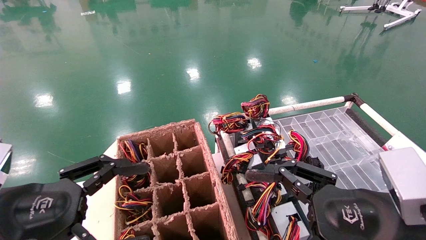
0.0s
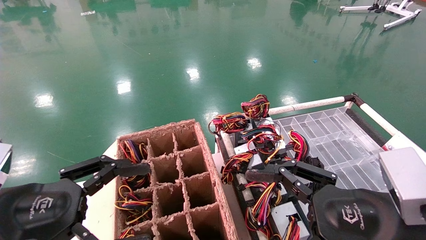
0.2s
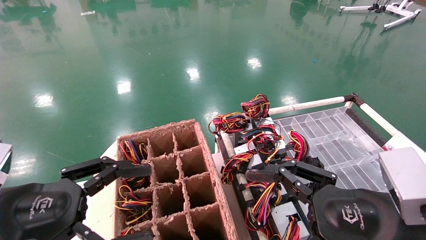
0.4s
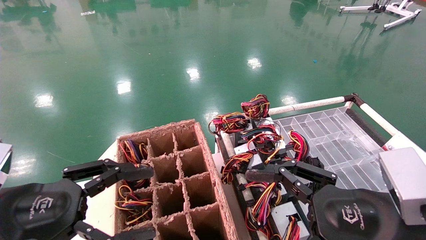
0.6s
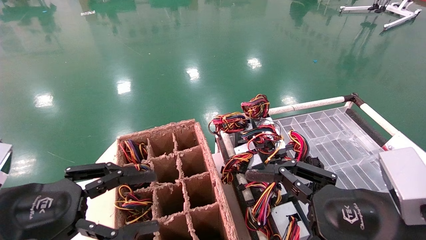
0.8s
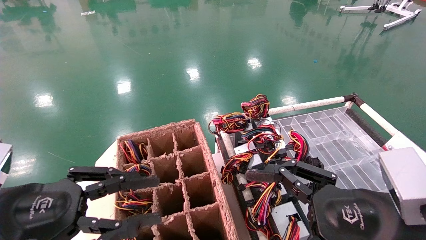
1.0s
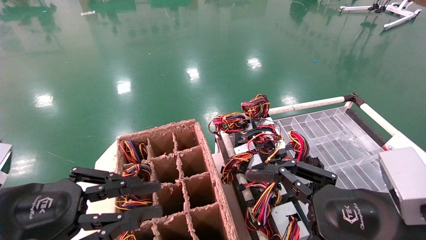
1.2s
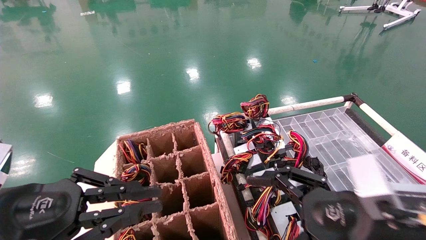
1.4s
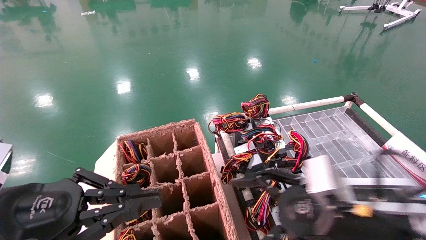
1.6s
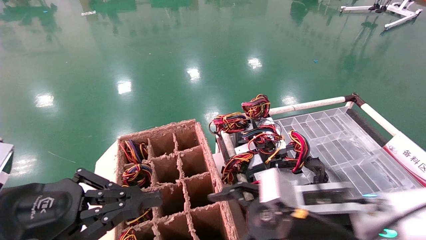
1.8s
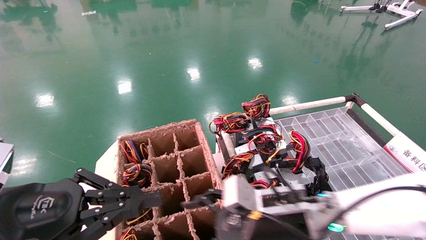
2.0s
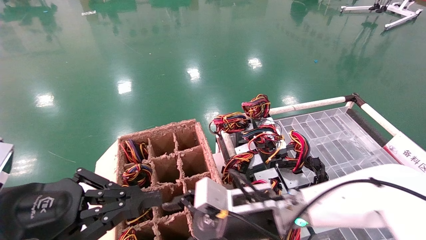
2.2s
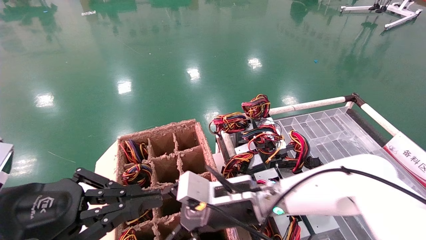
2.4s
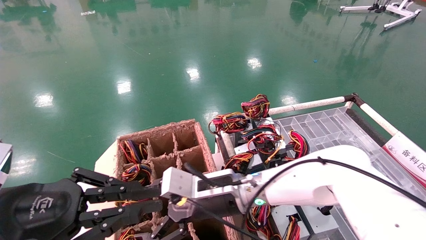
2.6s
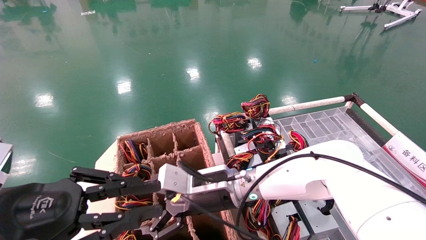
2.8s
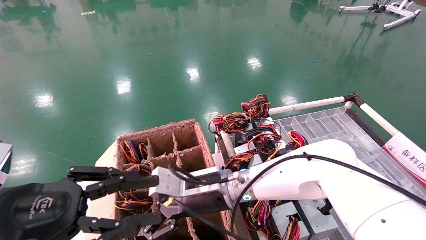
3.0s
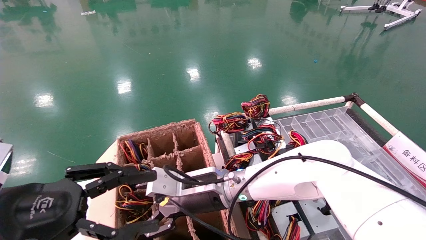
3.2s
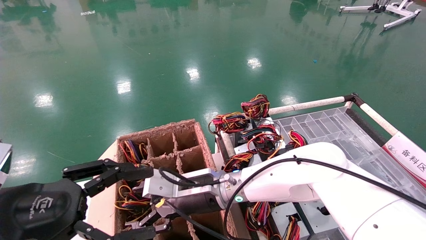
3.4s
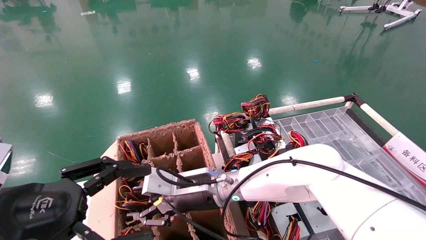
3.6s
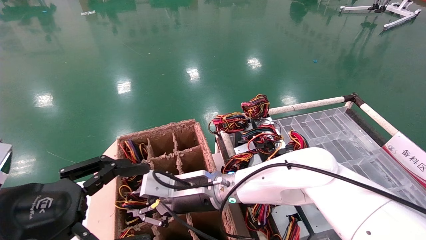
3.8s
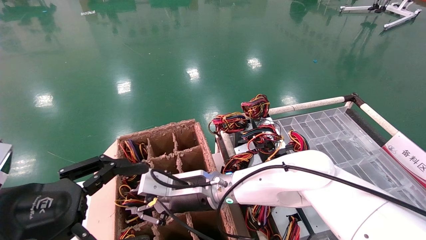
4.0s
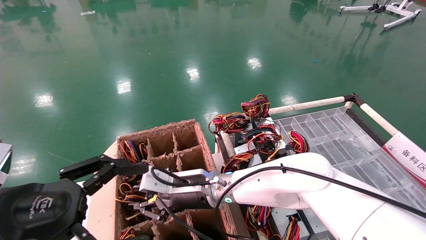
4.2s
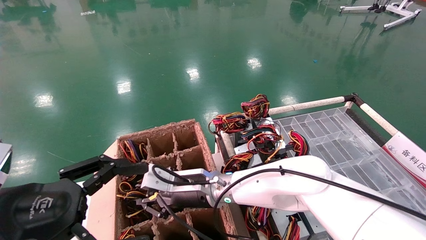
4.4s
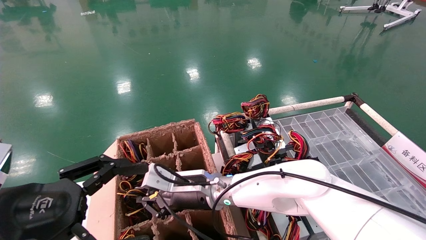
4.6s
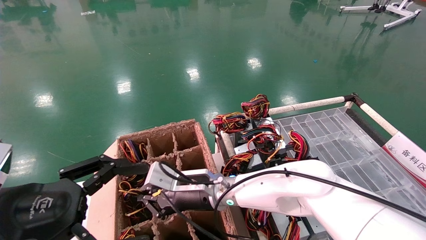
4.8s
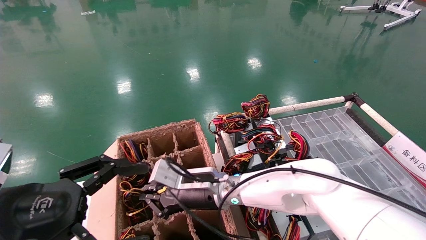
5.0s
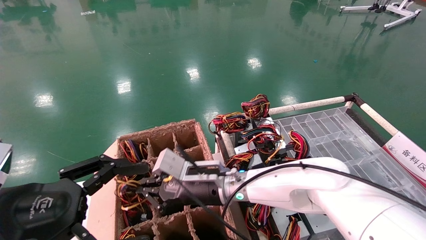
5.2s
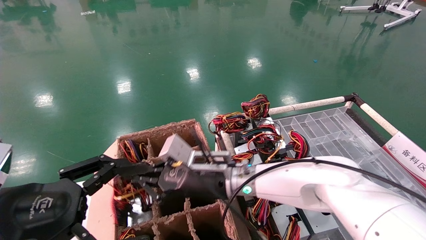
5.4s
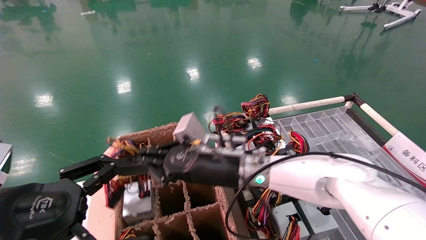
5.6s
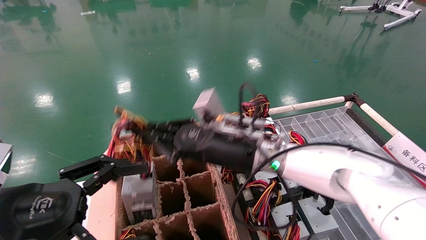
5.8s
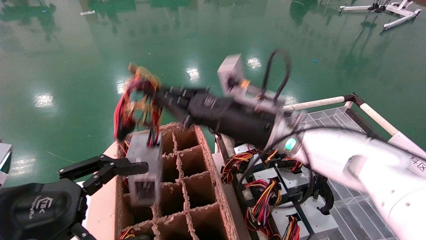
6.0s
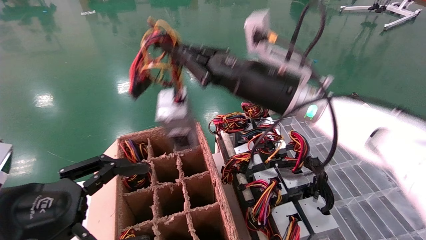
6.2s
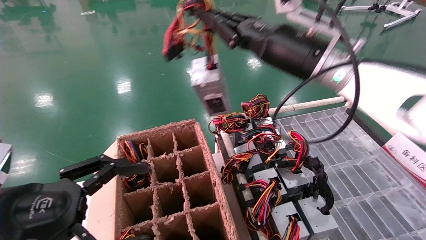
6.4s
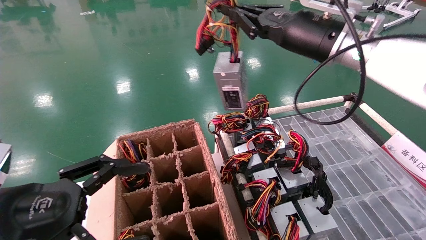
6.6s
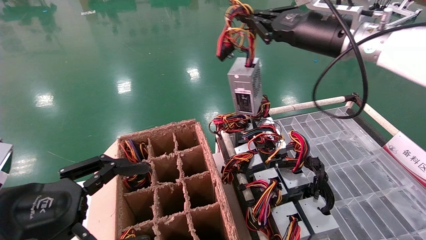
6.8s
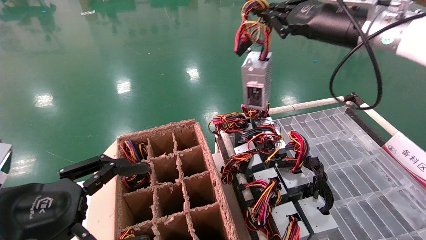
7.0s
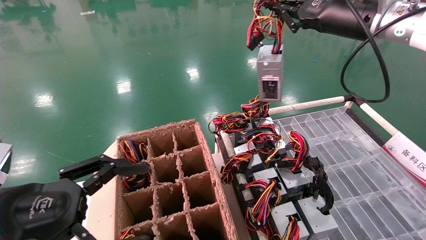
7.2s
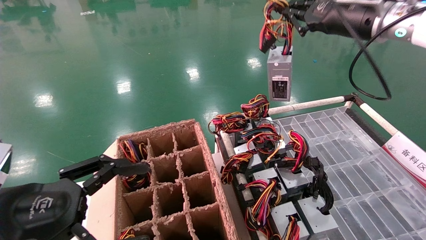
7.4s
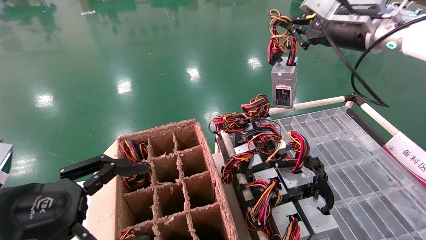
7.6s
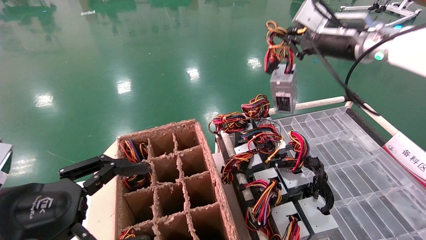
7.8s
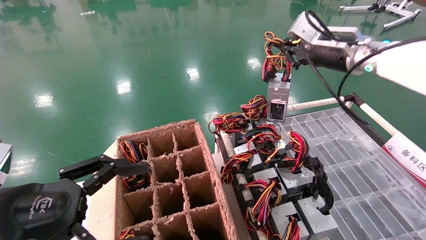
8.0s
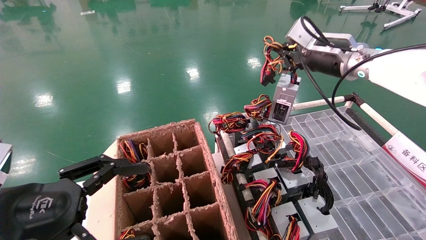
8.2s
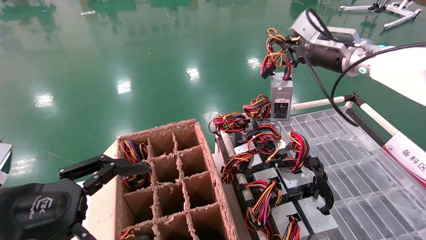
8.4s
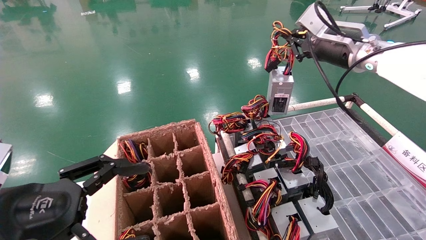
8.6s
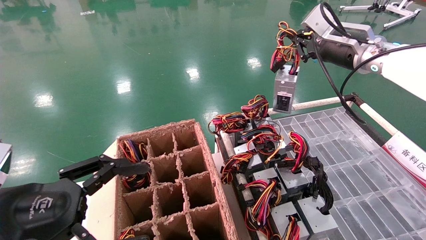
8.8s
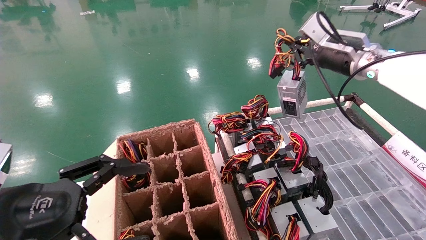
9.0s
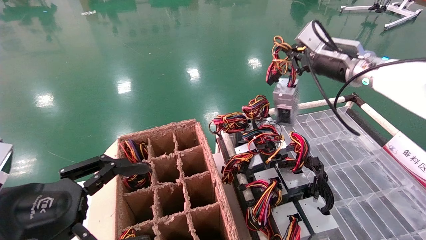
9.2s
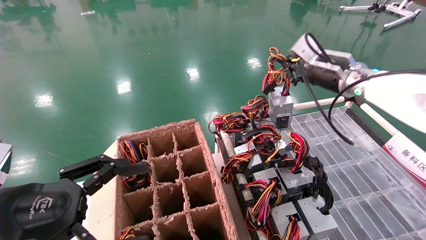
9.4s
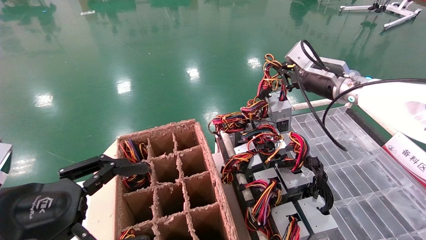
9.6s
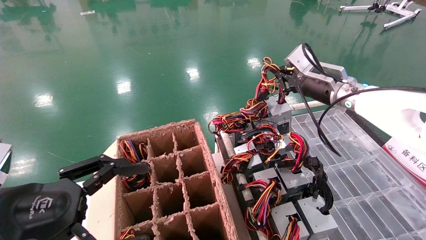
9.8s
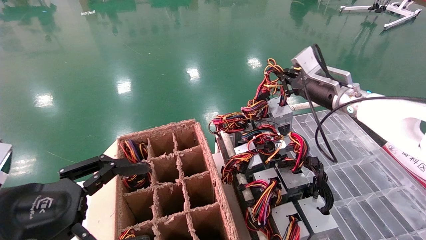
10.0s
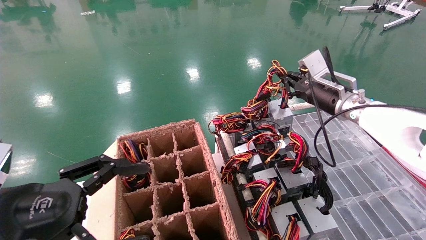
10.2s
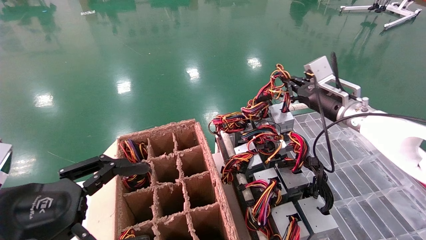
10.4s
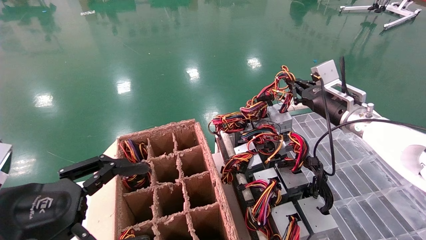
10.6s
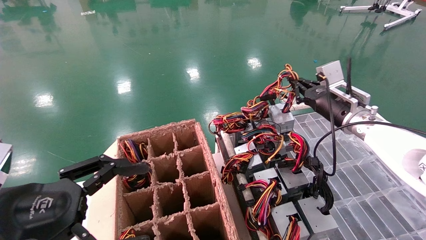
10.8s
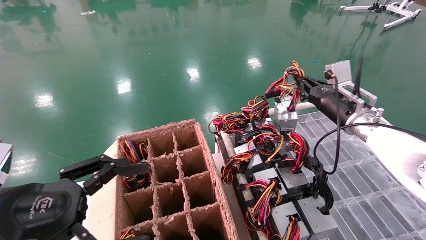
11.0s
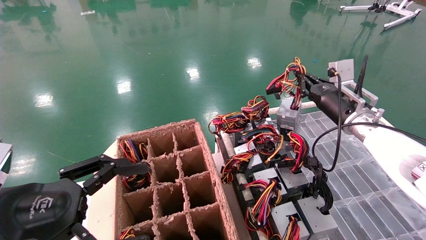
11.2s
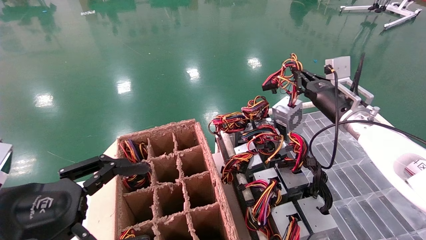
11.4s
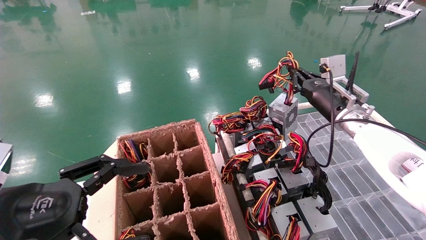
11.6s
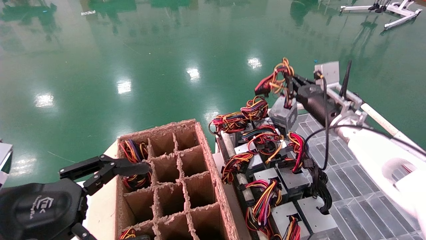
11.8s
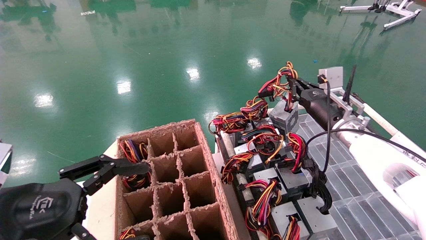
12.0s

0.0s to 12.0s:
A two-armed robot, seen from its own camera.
Step, 2.0s to 4.8s: Grab and lift the power supply from the large box.
0.0s to 1.6s: The right gripper moves forward, approximately 5 cm. Meanwhile the left gripper closes up.
1.6s to 3.0s: The right gripper is displaced to the left and forward by some 25 cm.
3.0s to 4.4s: The left gripper opens. Meanwhile the right gripper closes up.
4.4s to 6.0s: The right gripper goes roughly 20 cm upward and to the right.
6.0s to 7.6s: The right gripper goes roughly 25 cm to the right and upward.
7.6s to 9.0s: The right gripper ends up roughly 5 cm from where it was.
9.0s to 10.4s: The right gripper travels downward by about 10 cm.

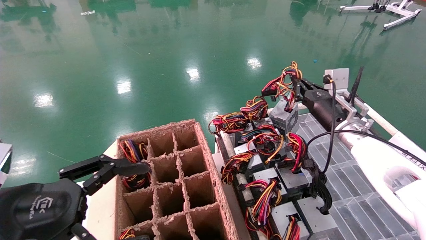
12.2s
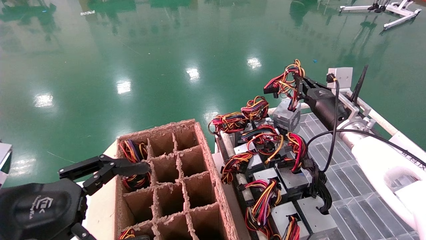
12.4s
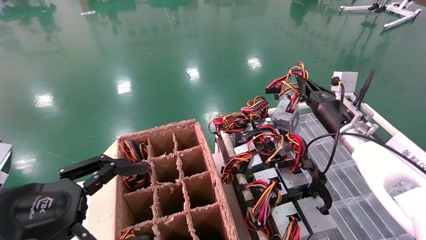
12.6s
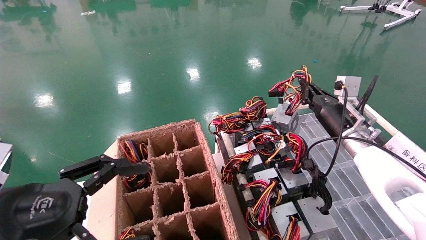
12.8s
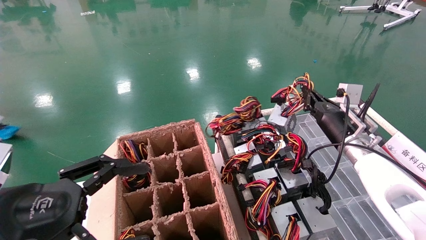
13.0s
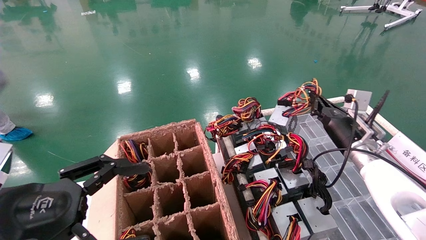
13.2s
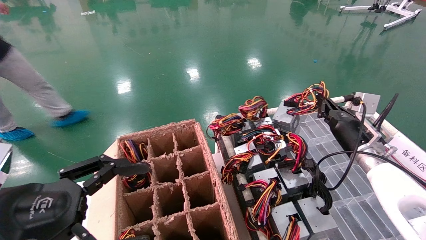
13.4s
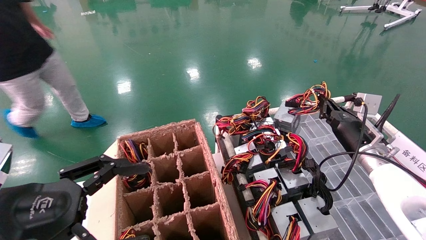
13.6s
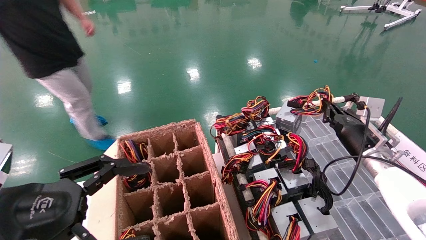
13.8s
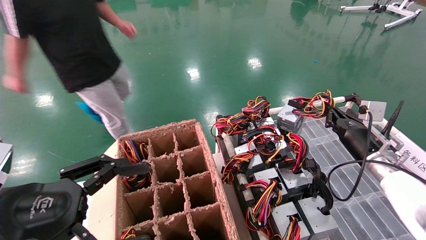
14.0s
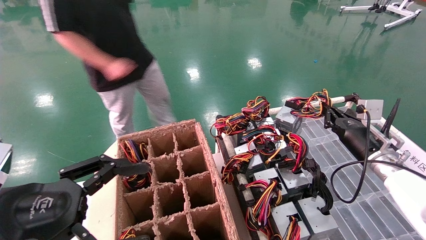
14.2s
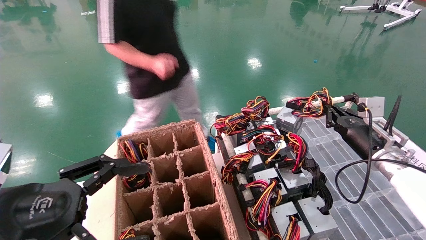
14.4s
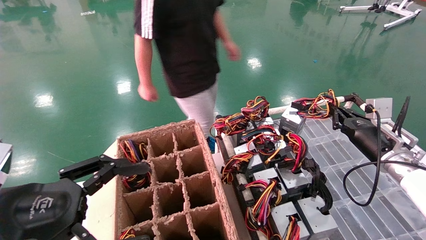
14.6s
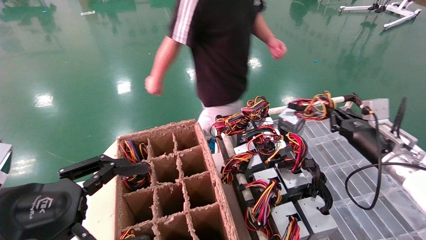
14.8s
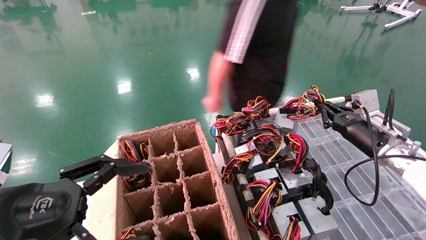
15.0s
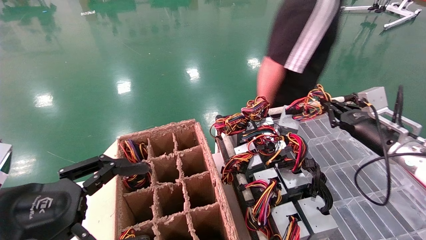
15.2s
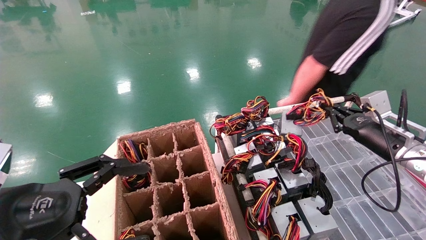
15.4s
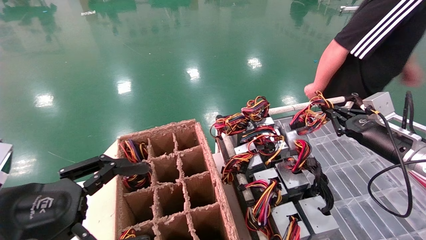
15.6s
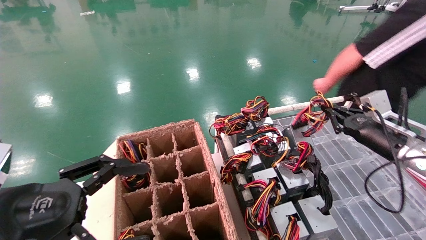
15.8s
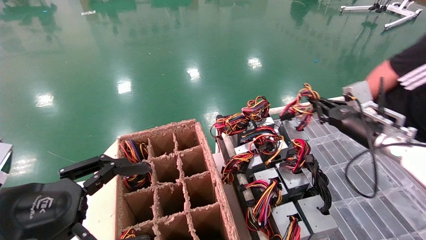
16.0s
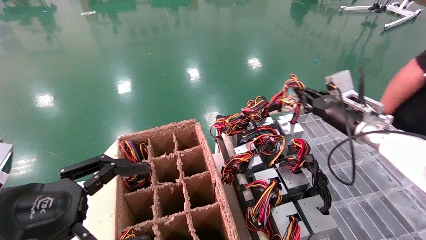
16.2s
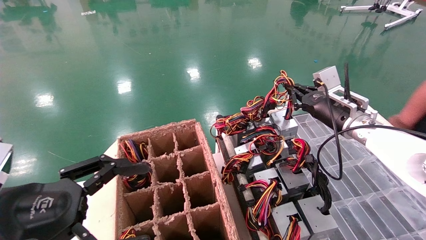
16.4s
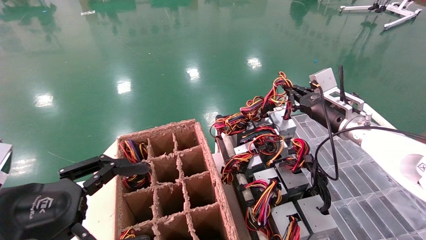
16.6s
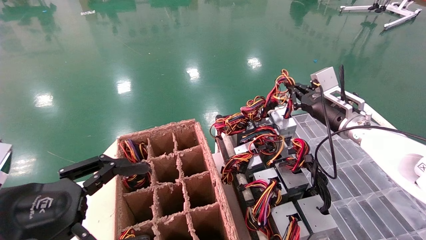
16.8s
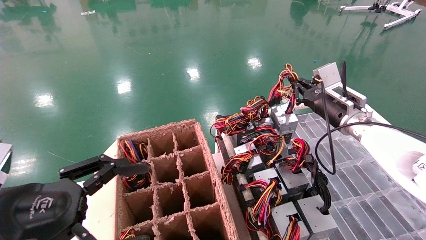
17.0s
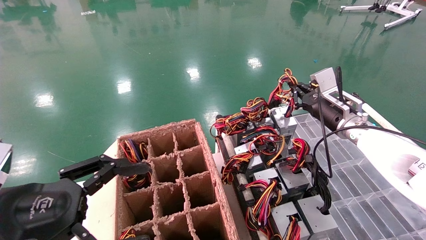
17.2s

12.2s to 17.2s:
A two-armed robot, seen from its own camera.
12.2s to 13.8s: The right gripper heads downward and to the right, covering some 10 cm.
13.8s to 15.6s: The right gripper shifts by about 5 cm.
15.6s to 17.2s: The right gripper is displaced to the left, forward and upward by approximately 10 cm.
